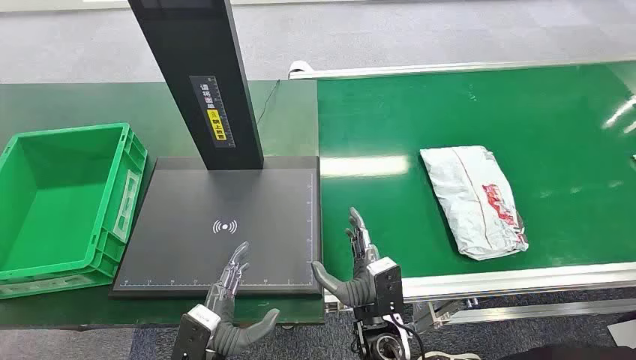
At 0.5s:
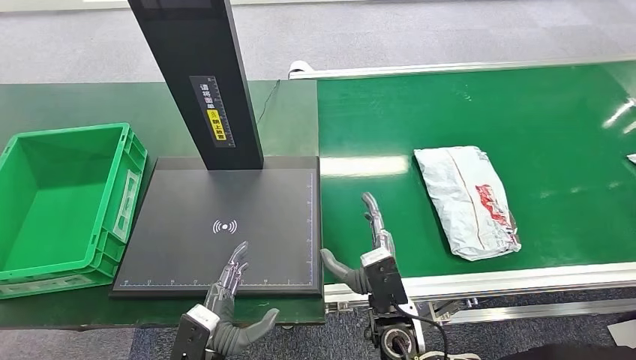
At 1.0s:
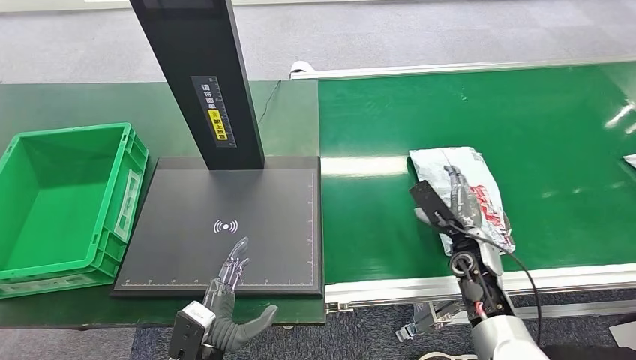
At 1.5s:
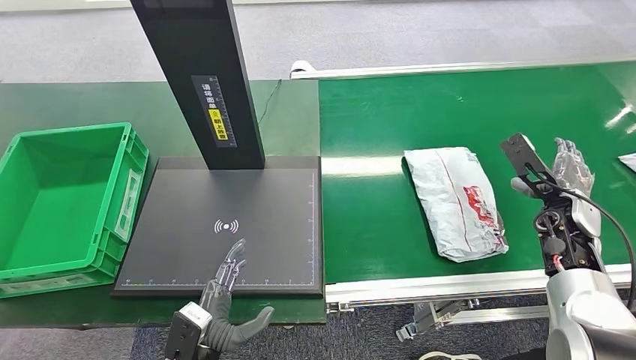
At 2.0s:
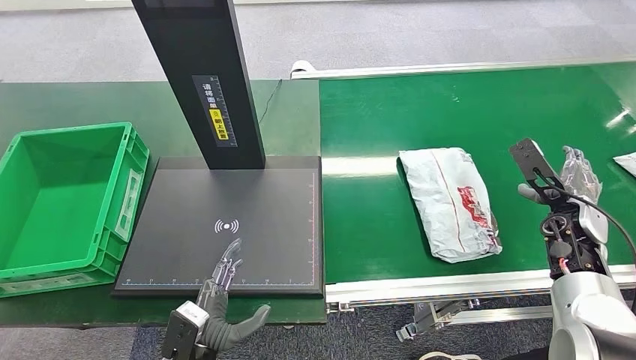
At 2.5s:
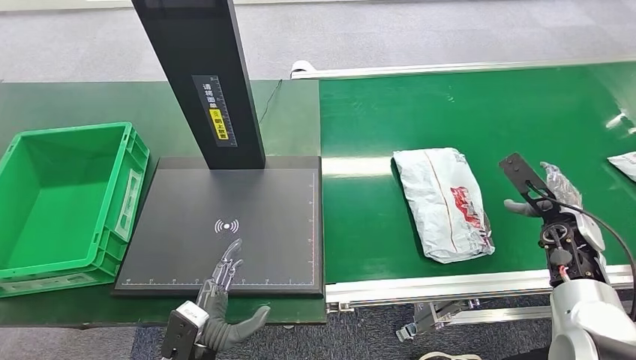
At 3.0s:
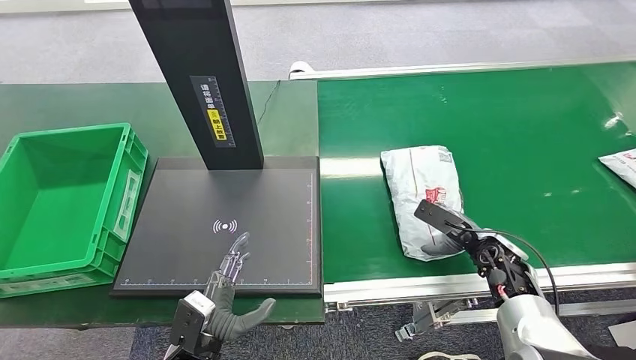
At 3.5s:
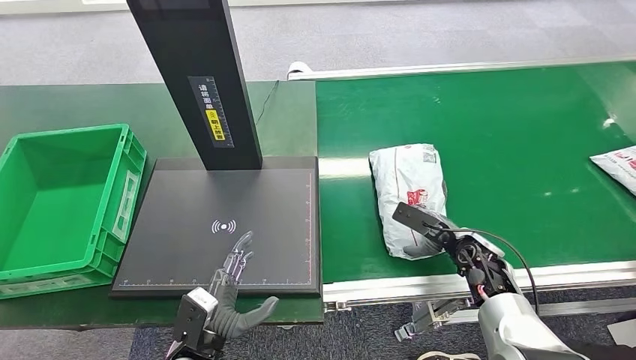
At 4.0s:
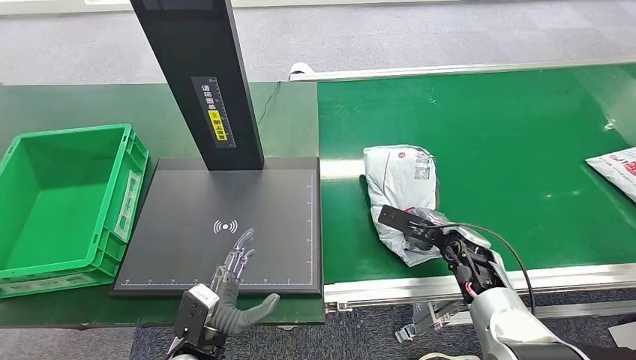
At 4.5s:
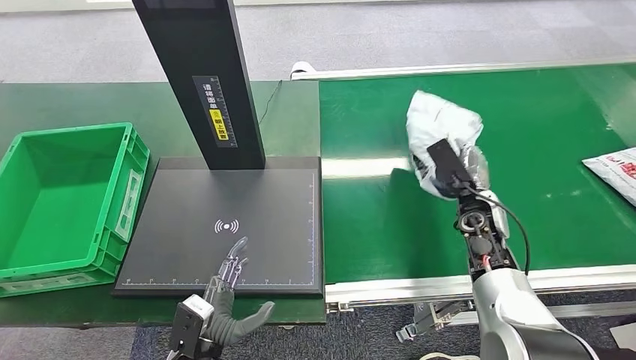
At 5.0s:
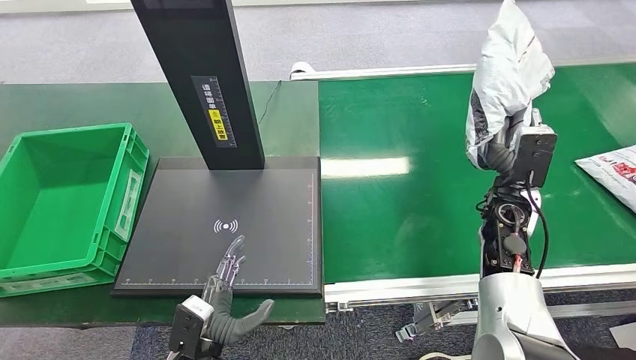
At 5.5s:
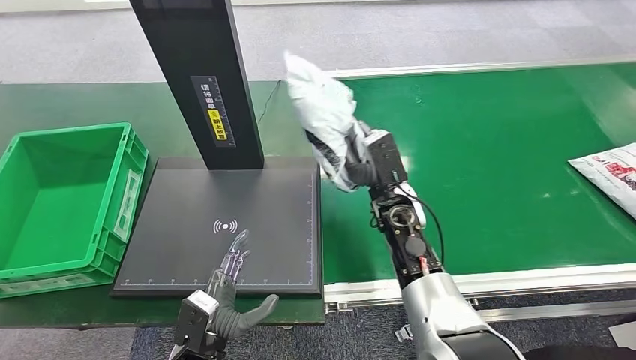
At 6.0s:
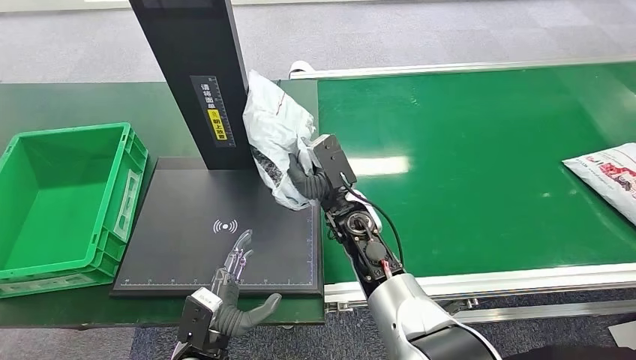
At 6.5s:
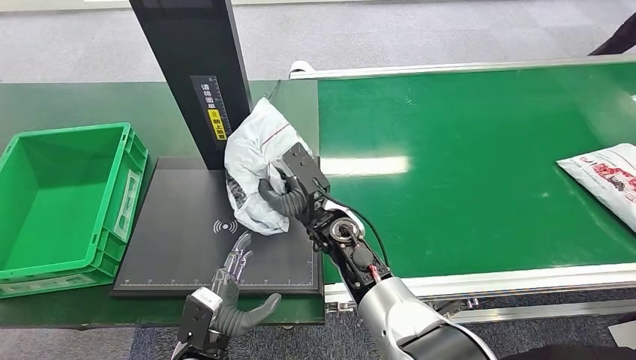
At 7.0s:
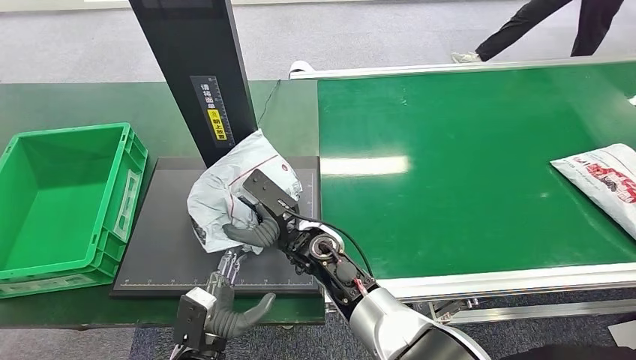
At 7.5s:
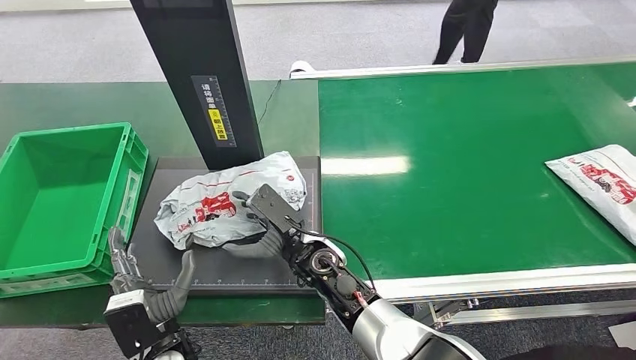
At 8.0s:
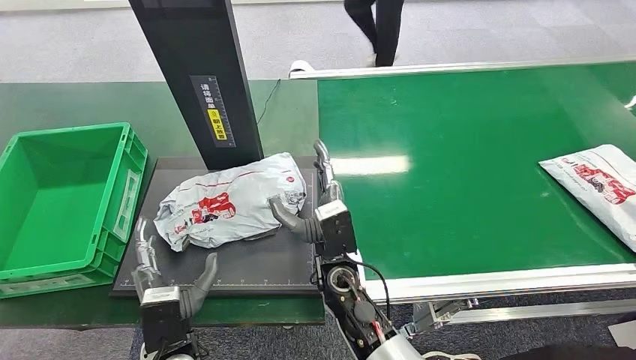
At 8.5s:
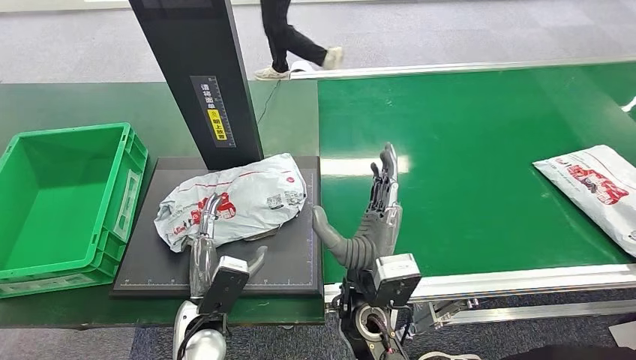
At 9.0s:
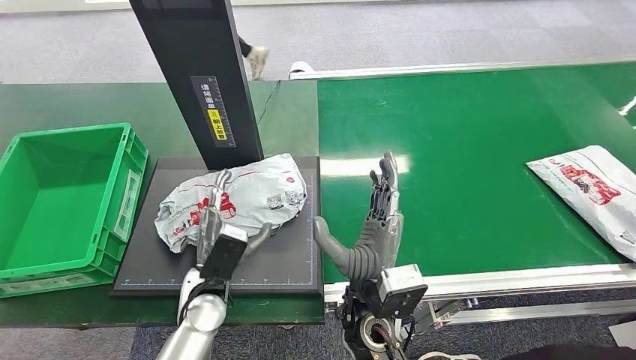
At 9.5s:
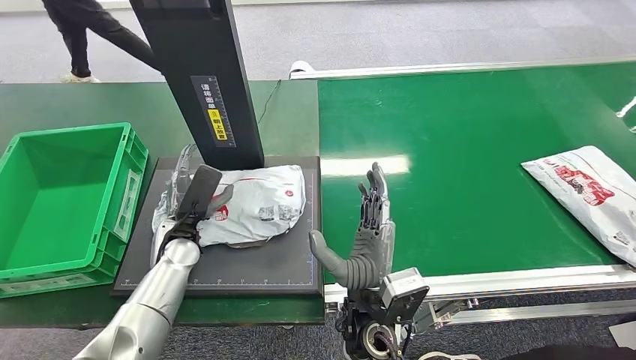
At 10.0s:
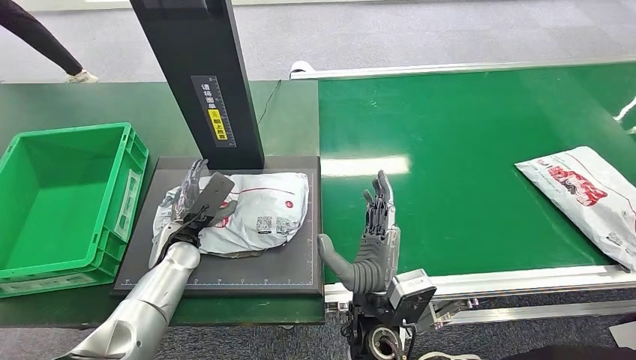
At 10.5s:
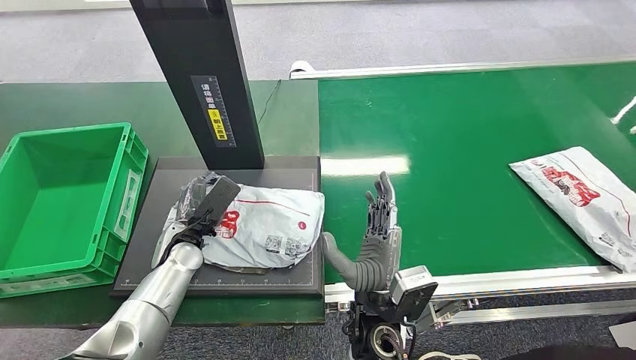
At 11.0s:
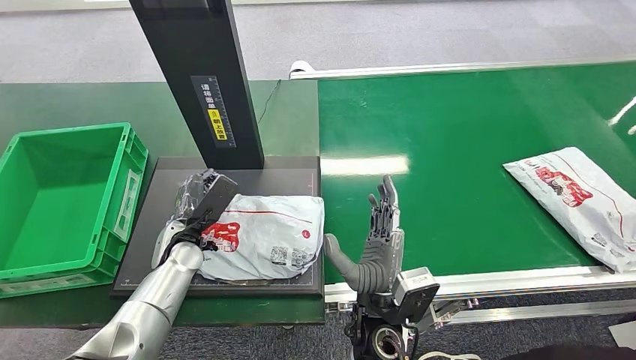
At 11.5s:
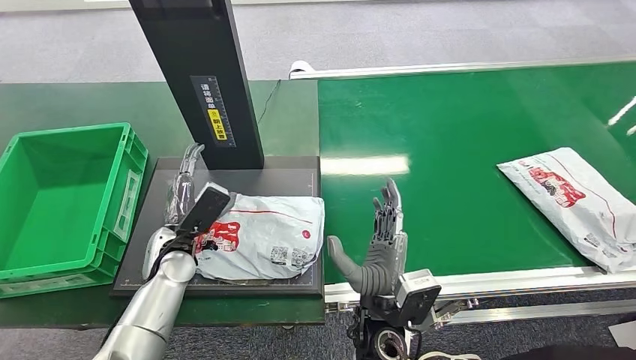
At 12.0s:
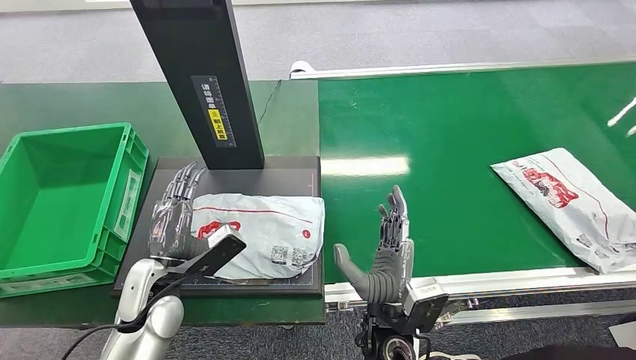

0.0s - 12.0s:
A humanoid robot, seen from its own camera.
Step, 0.0s - 5.0s: Pick up the package from the conveyor belt.
Step, 5.5s - 8.0s: Place the package onto the inbound machine.
10.0s - 12.0s: The left hand goes some 10 cm backward.

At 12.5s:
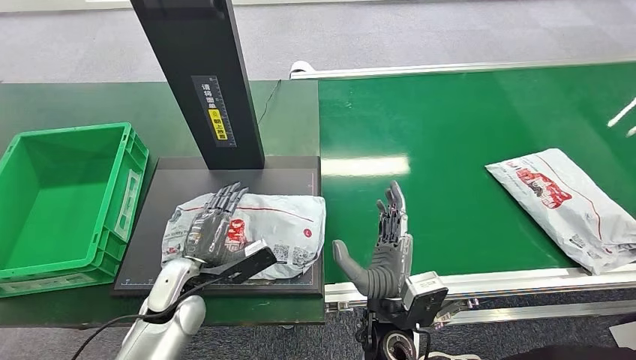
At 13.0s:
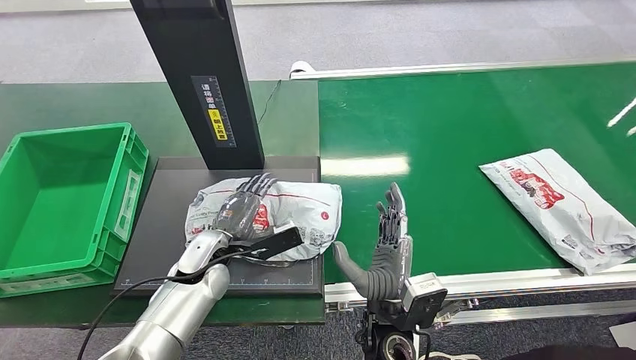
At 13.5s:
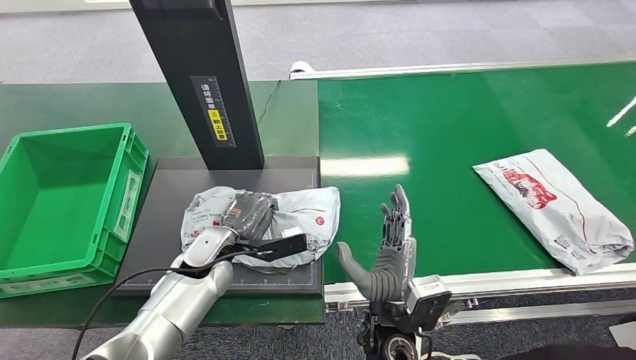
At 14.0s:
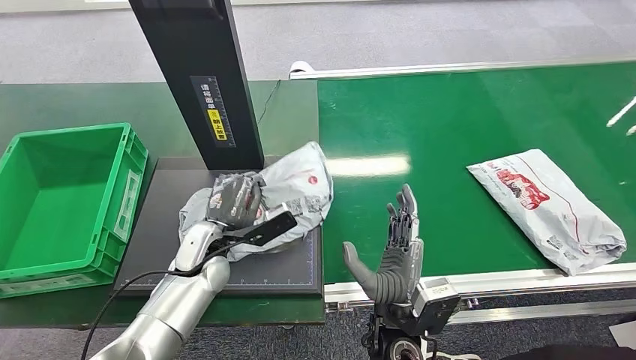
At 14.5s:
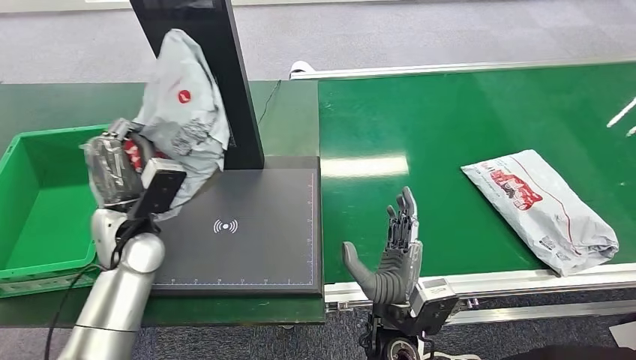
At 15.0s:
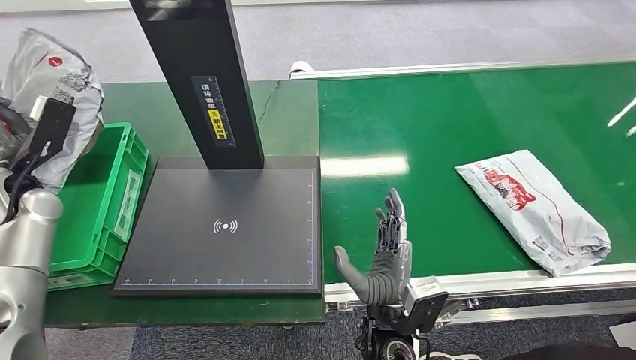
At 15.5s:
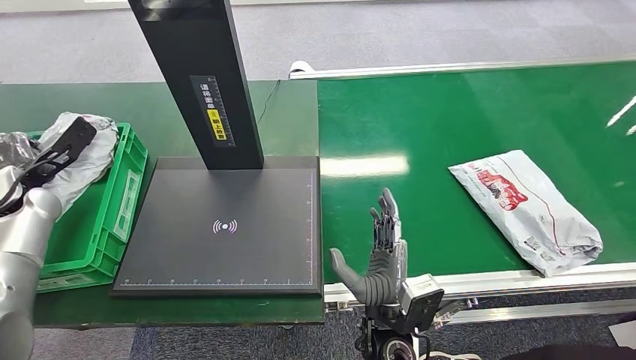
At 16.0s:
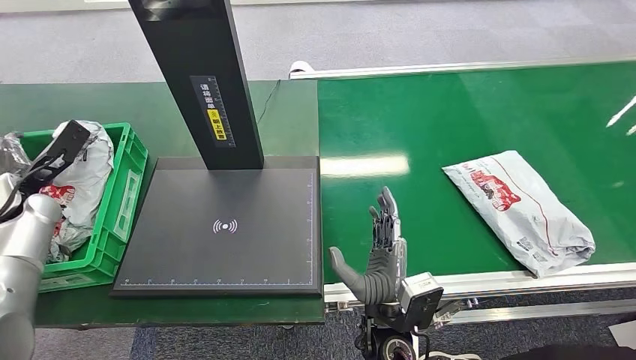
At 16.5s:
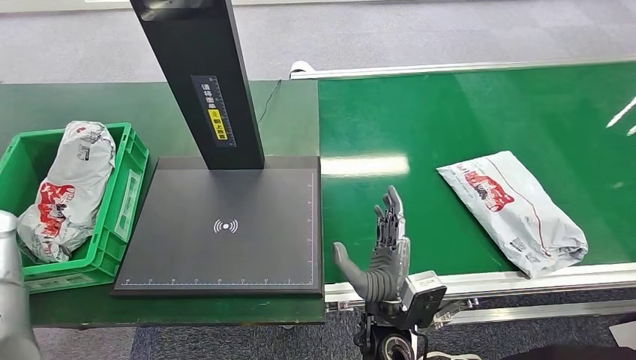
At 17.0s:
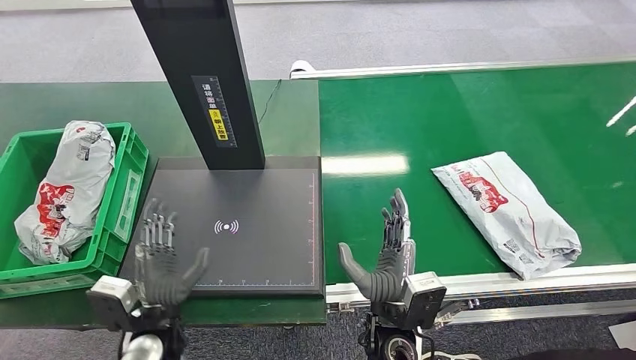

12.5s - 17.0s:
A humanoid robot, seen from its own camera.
Step, 12.5s - 14.5s: Pick up the package from the inbound machine.
Step, 15.0s - 17.0s: Place the package into the parcel locker.
